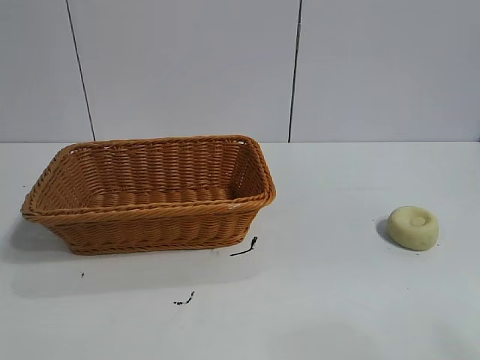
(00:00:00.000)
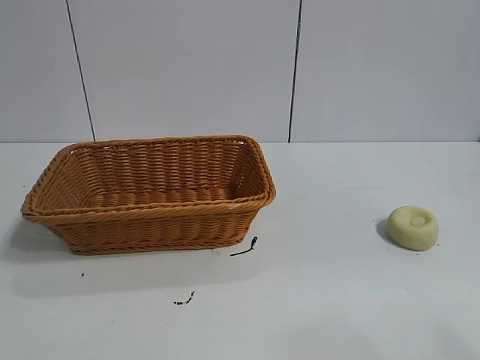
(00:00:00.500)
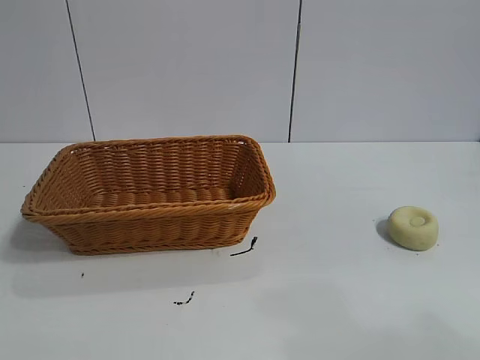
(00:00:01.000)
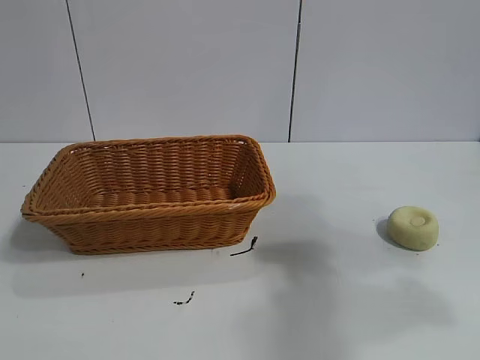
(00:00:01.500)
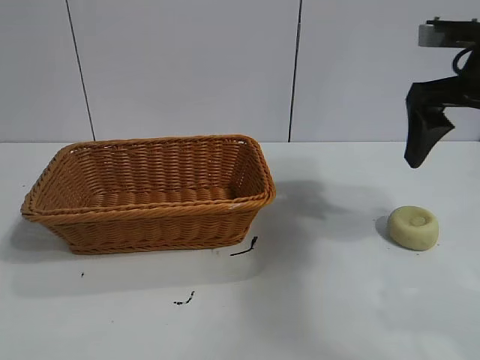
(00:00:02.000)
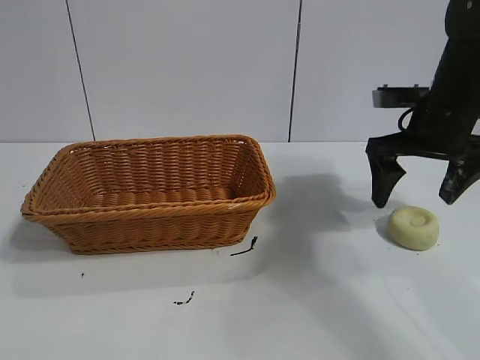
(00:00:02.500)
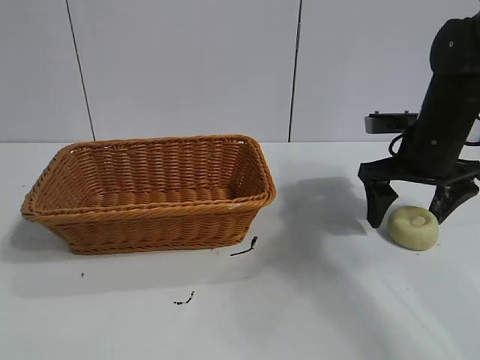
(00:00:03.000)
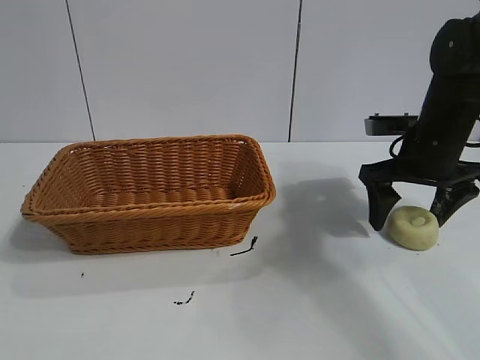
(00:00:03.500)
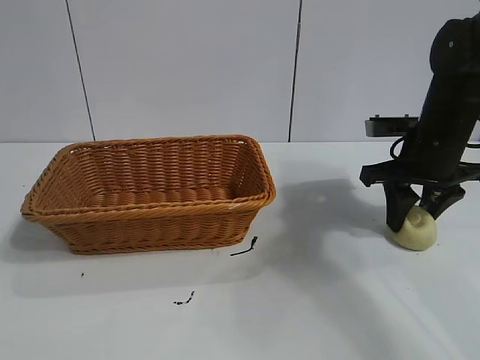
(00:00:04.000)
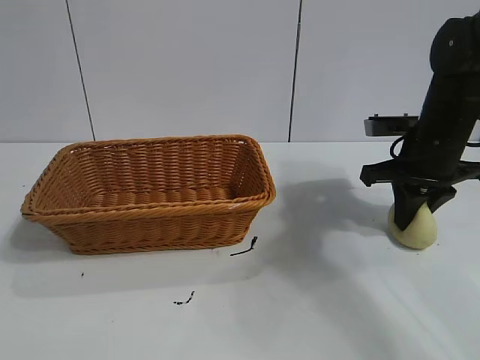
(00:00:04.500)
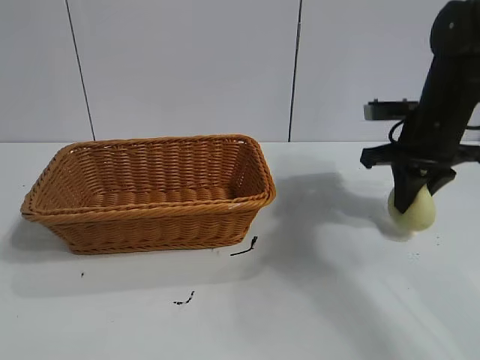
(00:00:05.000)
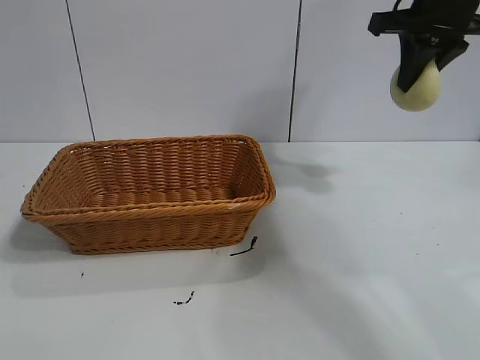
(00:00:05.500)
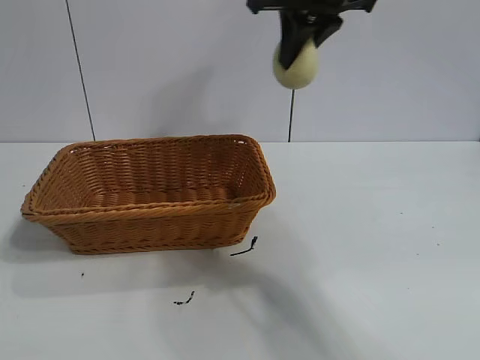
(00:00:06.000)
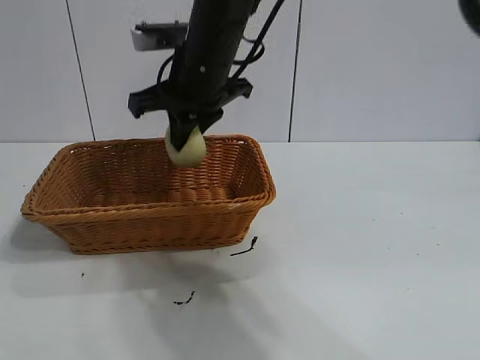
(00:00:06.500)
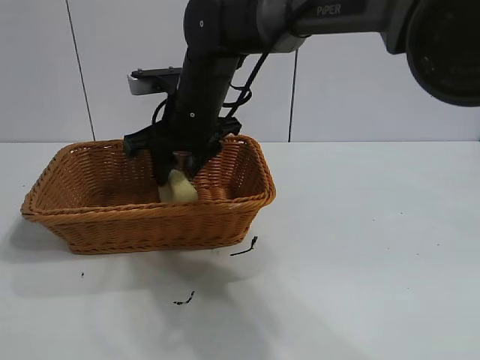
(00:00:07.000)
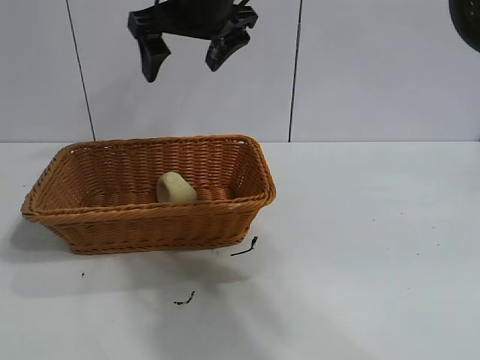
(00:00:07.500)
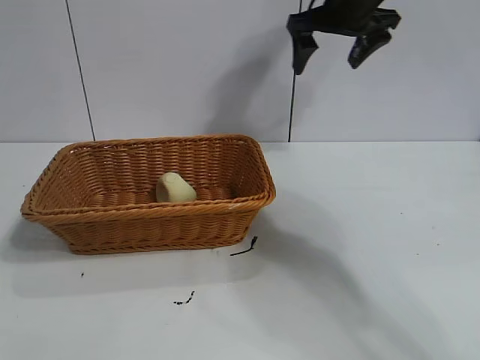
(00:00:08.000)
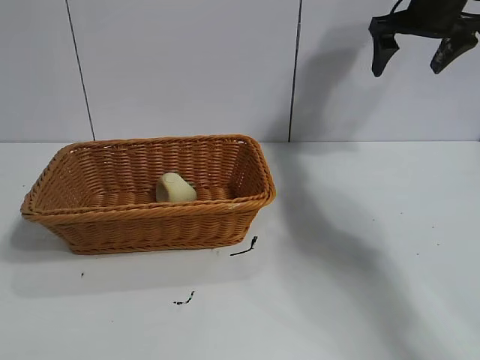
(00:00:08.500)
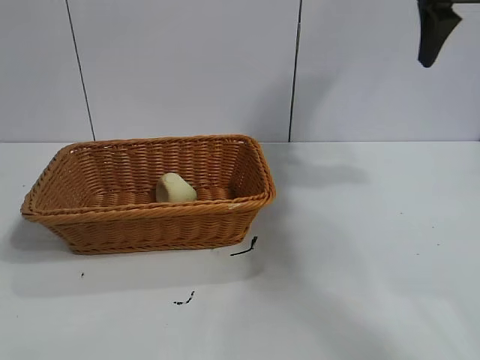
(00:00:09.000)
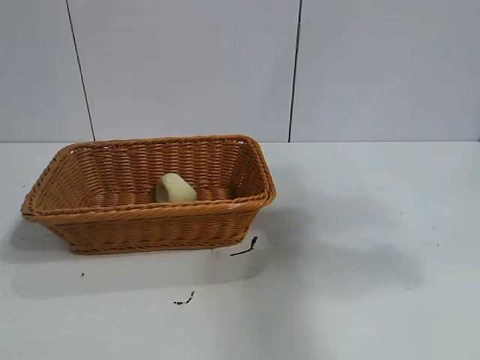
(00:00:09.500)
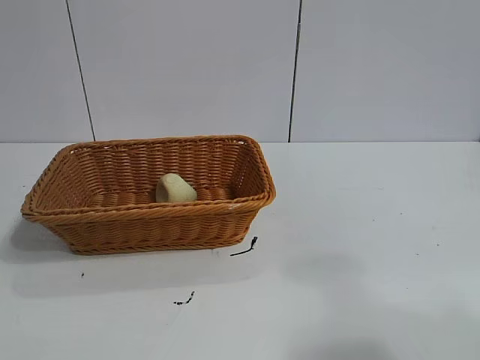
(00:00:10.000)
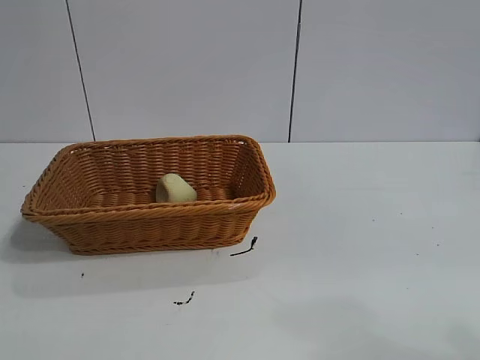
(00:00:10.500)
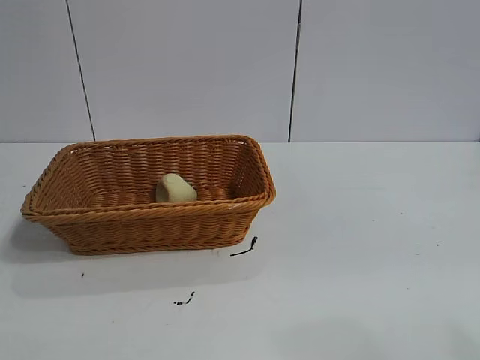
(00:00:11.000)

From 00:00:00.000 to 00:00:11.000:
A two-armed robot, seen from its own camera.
Task of the whole recording: pick up the egg yolk pastry and put it into the basket.
Step, from 00:00:01.000 to 00:00:03.500: Grasp egg yolk pastry with right gripper.
Step, from 00:00:04.500 to 00:00:07.000: Place the egg yolk pastry in the basket with right gripper.

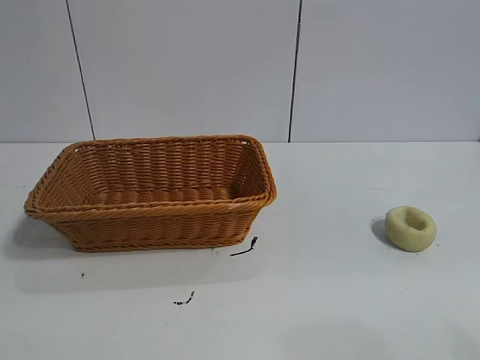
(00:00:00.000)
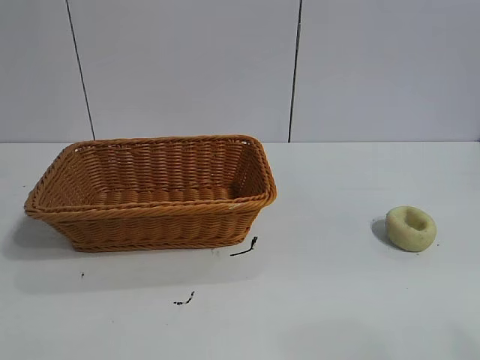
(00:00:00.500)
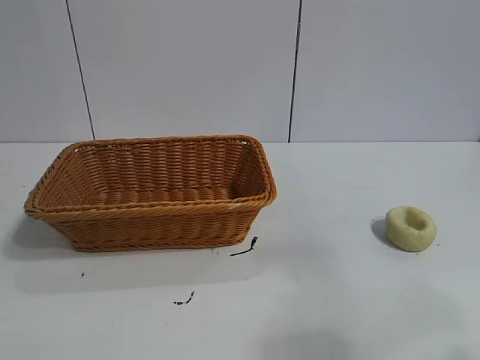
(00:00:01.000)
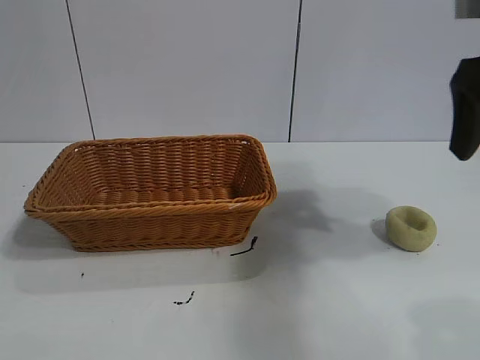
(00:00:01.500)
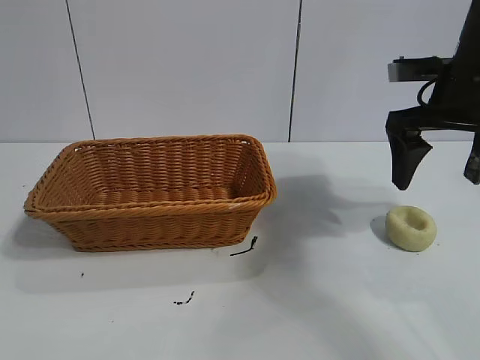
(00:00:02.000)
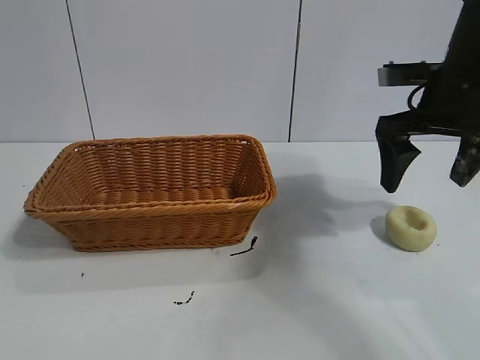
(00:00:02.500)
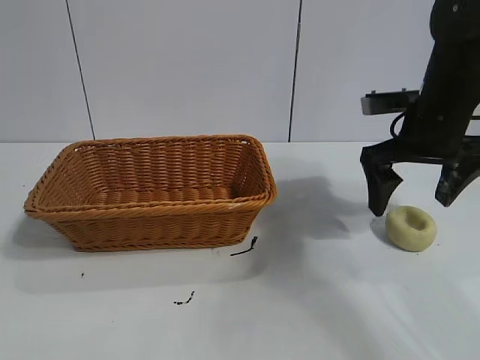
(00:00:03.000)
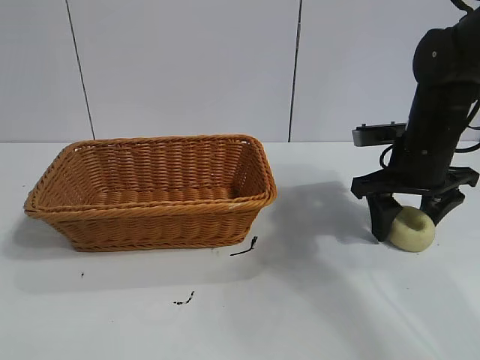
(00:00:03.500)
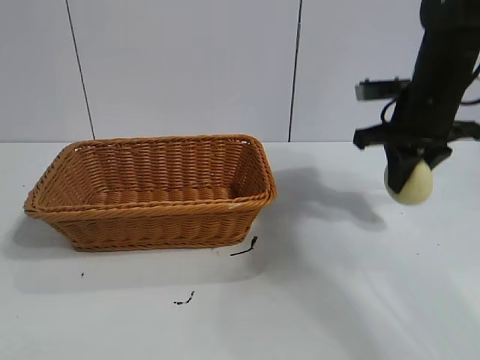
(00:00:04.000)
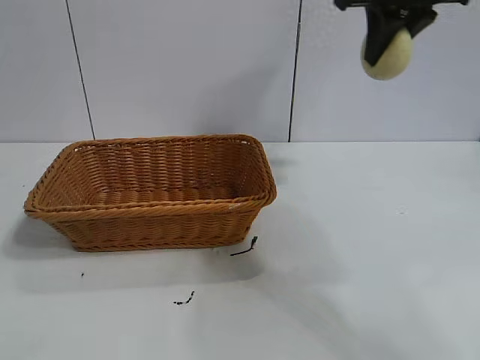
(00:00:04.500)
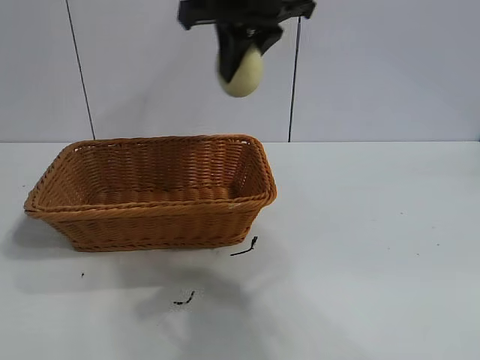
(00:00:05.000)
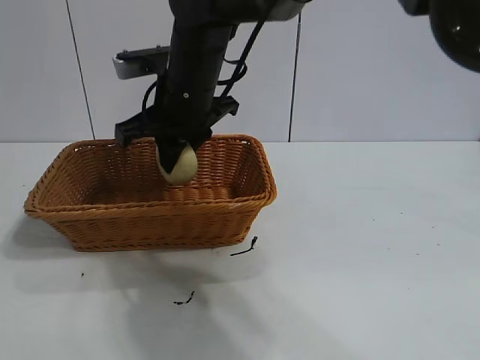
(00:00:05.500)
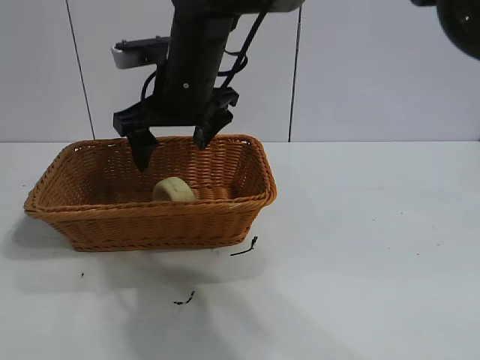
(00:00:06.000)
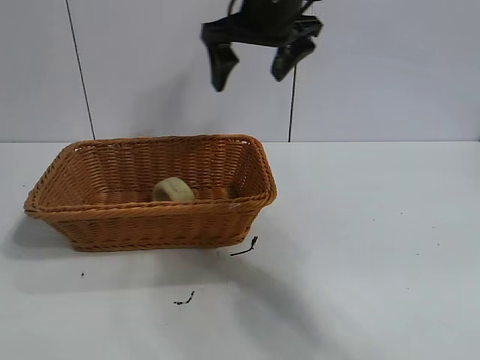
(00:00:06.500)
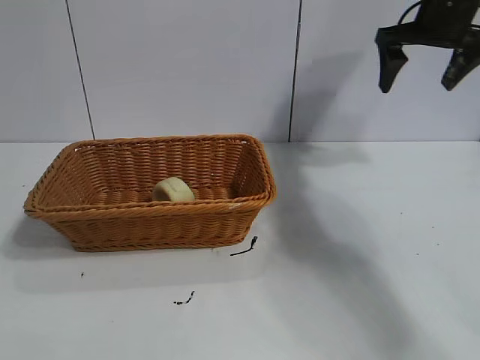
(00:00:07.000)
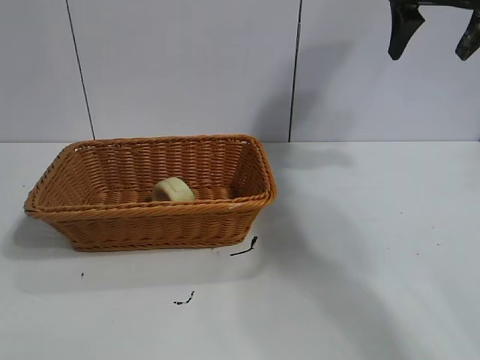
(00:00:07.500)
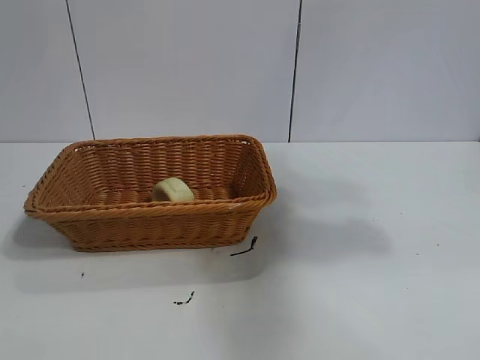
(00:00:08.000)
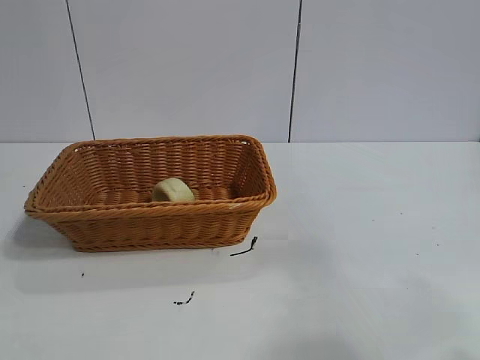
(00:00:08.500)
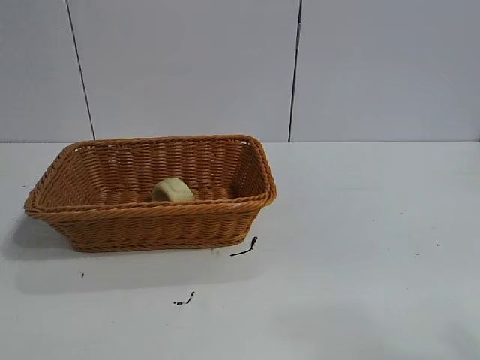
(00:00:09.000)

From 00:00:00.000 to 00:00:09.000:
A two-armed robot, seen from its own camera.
Task of the whole recording: pick up the egg yolk pastry and put it into the basket.
Step, from 00:00:01.000 to 00:00:03.500: Grasp egg yolk pastry with right gripper.
Step, from 00:00:04.000 to 00:00:05.500: Place the egg yolk pastry in the basket with right gripper.
